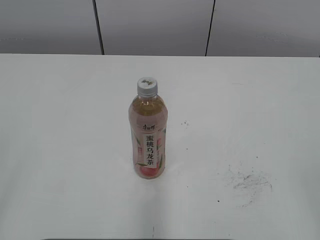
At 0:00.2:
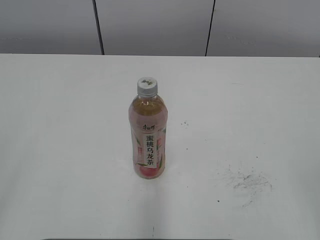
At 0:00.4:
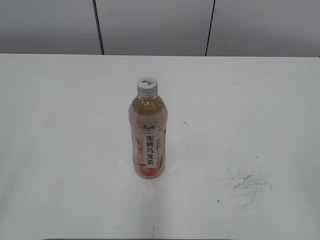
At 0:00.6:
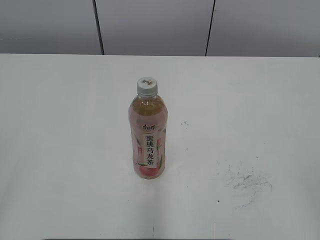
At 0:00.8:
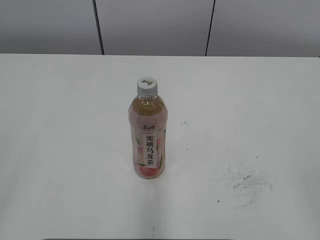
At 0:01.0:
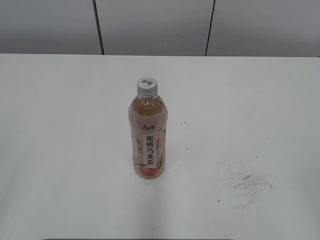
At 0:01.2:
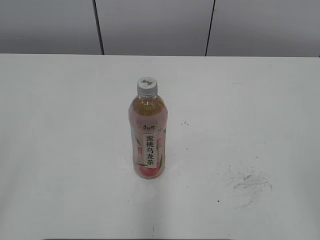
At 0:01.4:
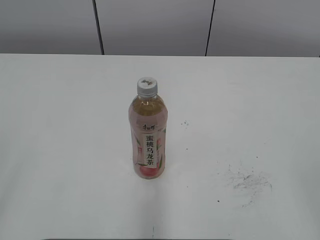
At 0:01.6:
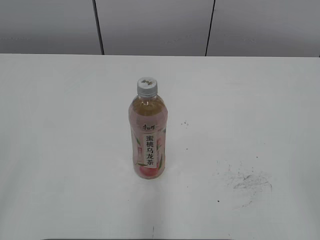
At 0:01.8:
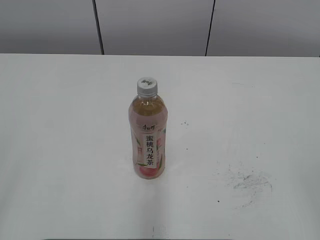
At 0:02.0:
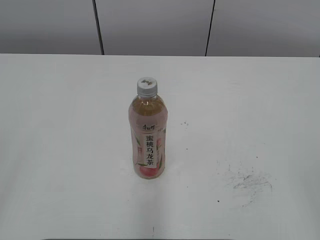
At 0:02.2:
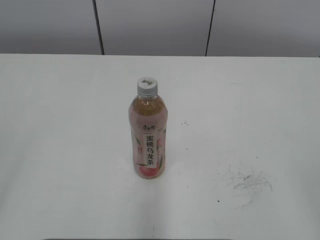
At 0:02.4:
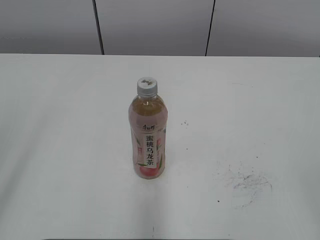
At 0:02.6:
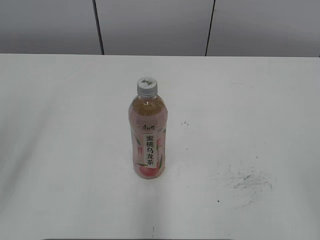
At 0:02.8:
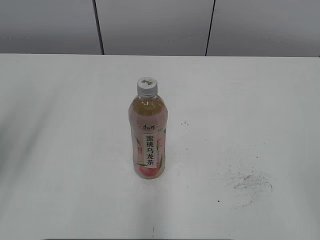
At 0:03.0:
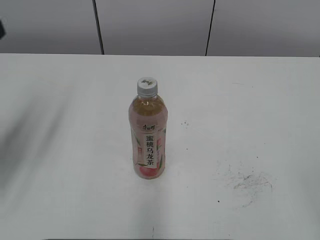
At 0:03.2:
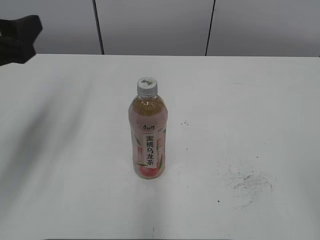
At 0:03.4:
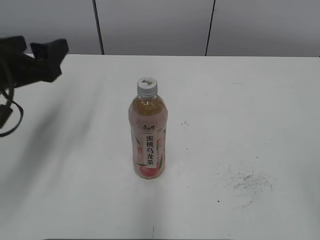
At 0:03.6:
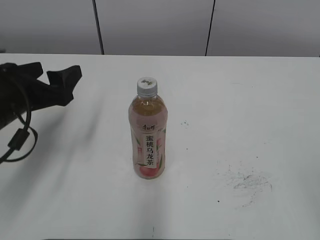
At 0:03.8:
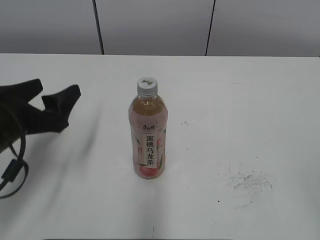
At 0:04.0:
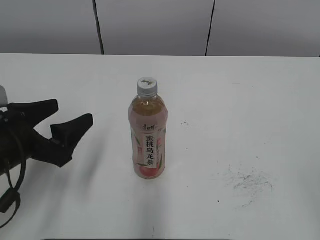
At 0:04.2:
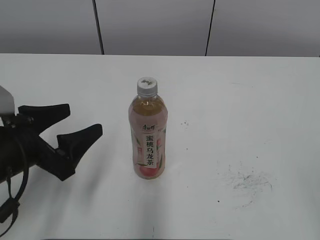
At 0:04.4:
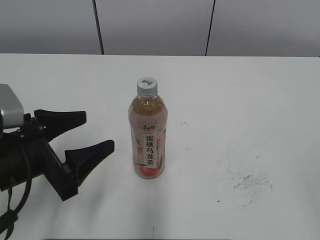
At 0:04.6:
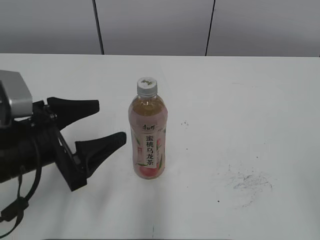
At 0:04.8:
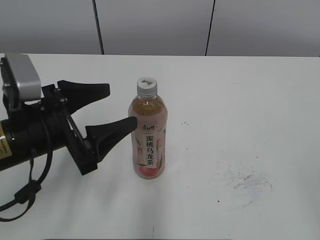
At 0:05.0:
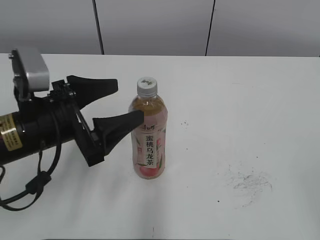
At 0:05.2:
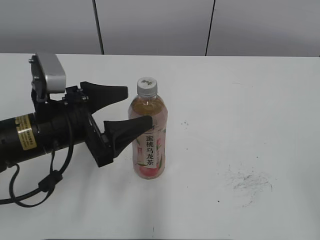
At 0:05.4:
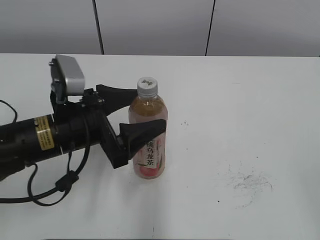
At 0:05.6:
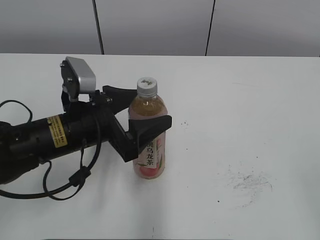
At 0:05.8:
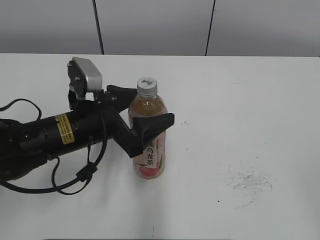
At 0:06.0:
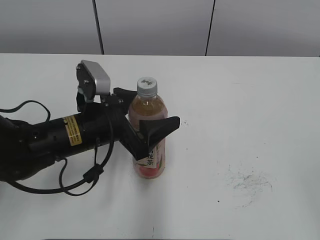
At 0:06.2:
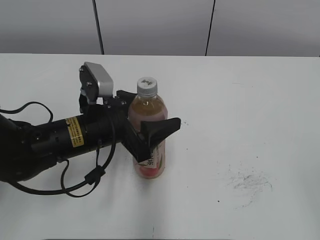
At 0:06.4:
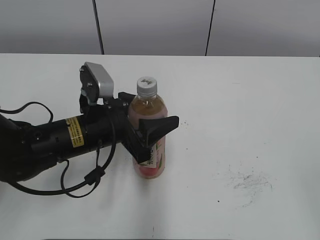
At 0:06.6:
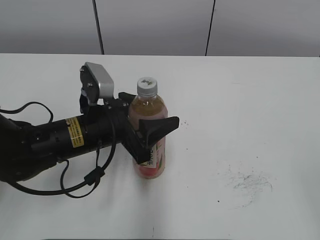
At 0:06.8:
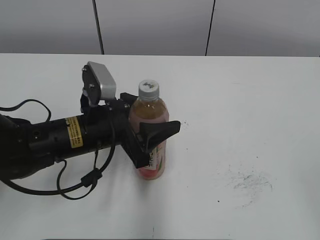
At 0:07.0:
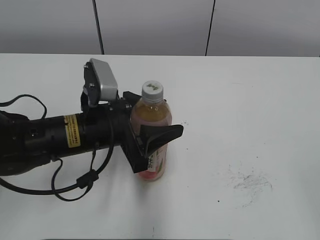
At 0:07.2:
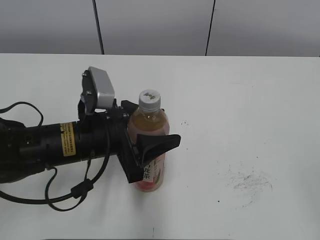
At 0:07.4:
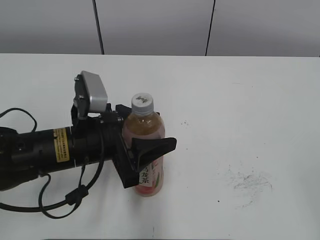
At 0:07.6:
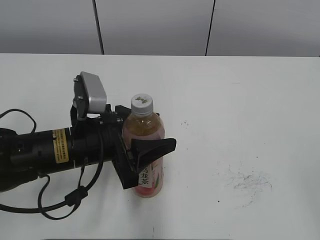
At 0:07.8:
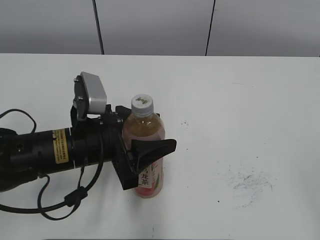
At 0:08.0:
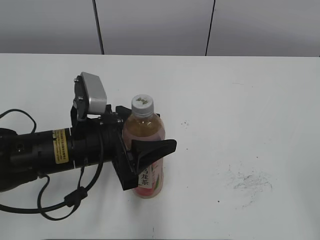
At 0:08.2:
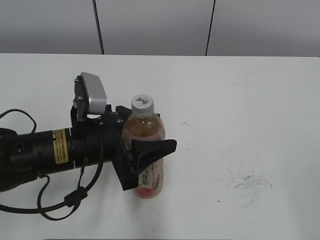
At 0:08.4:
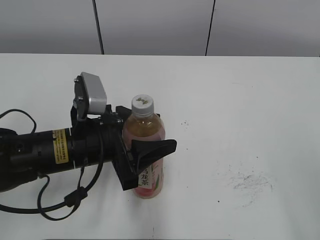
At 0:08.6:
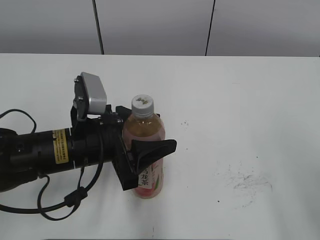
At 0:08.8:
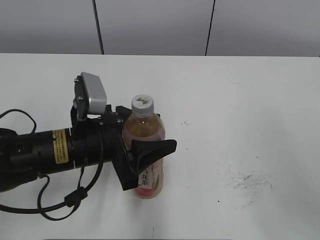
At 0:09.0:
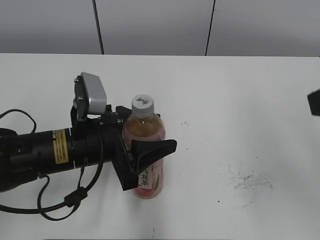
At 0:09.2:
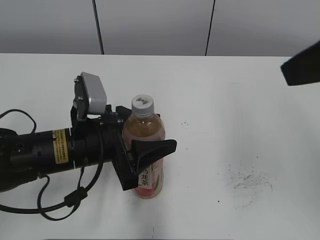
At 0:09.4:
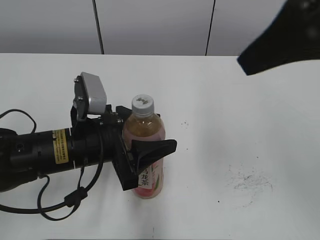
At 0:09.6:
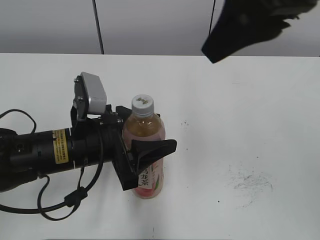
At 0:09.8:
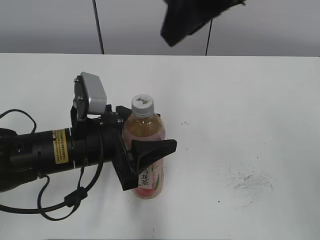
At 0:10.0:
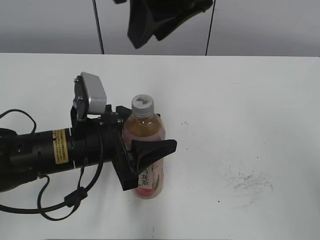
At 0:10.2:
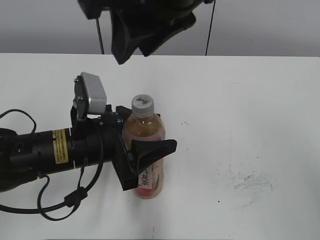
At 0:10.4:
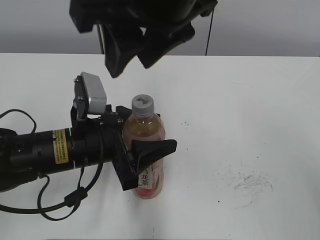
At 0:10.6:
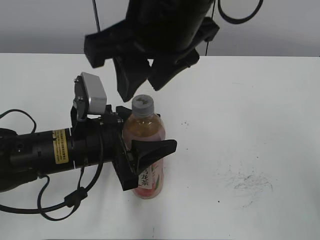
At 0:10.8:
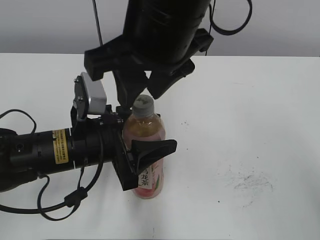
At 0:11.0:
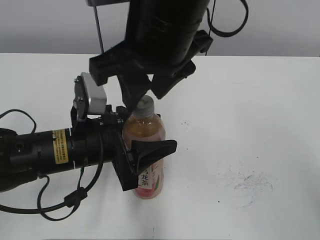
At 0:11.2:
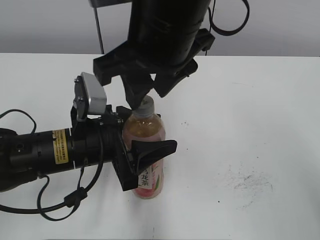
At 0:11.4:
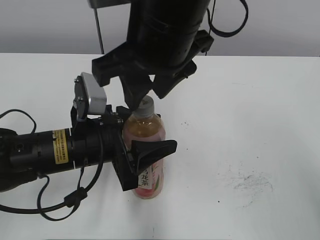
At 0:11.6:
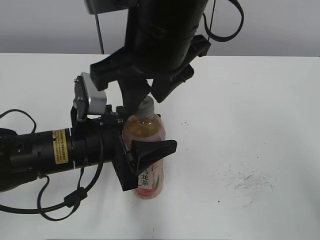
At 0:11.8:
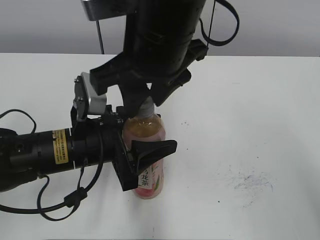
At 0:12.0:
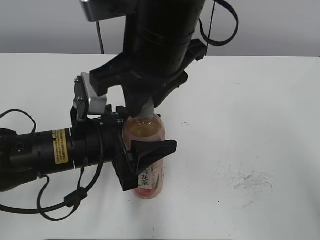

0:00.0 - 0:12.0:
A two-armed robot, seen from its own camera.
Step, 0:00.0 - 0:06.2: Grab the Peach Oolong Tea with the left hand.
Step, 0:06.4 - 0:07.8: Move the Peach Oolong Tea from left to right.
0:01.6 - 0:03.0: The left gripper heads forward, covering approximately 20 cm.
0:03.0 - 0:04.4: The left gripper travels downward and to the right by some 15 cm, and opens its fingers.
0:04.4 - 0:06.0: The left gripper shifts approximately 10 cm to the right and forward.
0:06.0 - 0:07.6: The left gripper closes.
0:07.6 - 0:09.0: The right gripper goes approximately 15 cm forward, to the left and upward.
0:09.0 - 0:10.4: The right gripper moves to the left and forward, approximately 25 cm.
0:10.4 - 0:12.0: The right gripper travels downward by some 5 cm.

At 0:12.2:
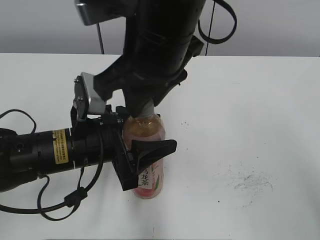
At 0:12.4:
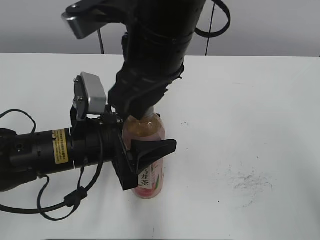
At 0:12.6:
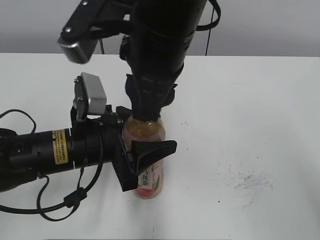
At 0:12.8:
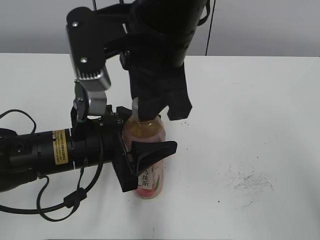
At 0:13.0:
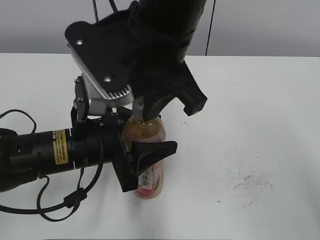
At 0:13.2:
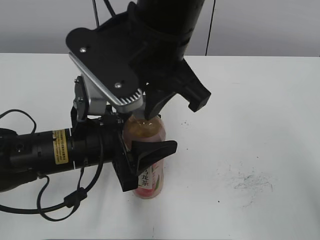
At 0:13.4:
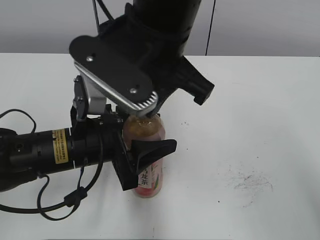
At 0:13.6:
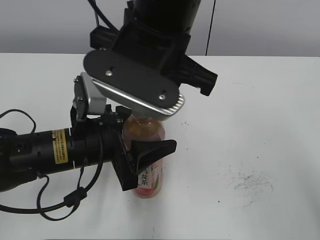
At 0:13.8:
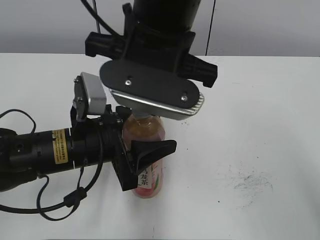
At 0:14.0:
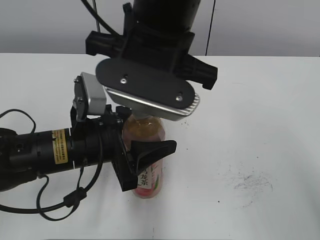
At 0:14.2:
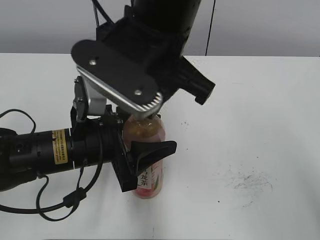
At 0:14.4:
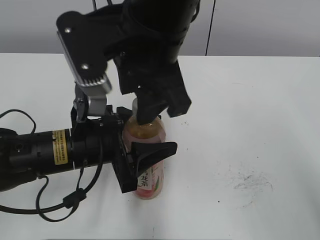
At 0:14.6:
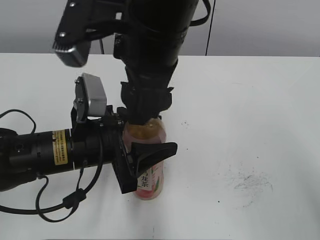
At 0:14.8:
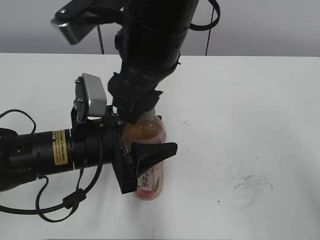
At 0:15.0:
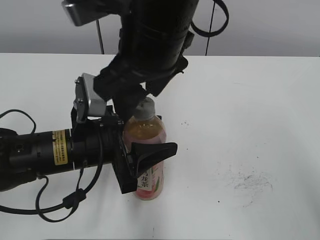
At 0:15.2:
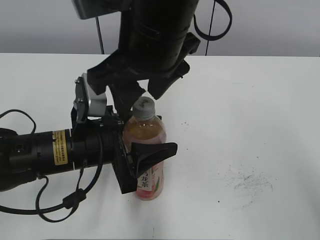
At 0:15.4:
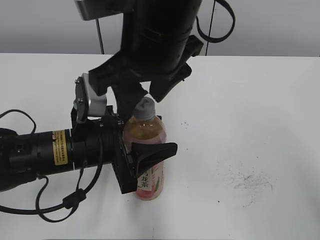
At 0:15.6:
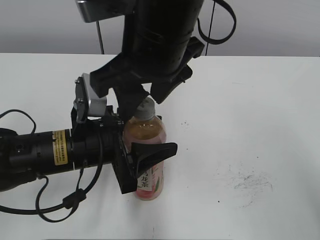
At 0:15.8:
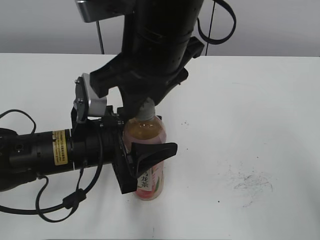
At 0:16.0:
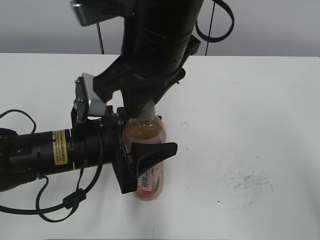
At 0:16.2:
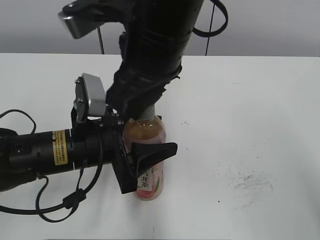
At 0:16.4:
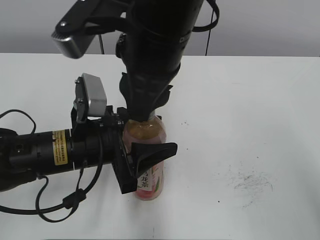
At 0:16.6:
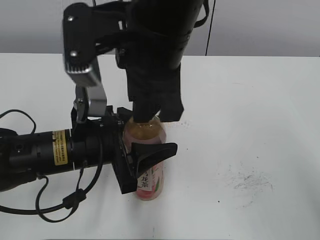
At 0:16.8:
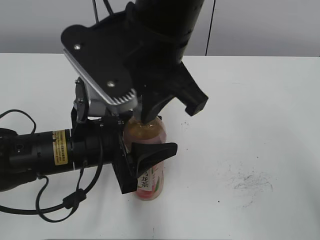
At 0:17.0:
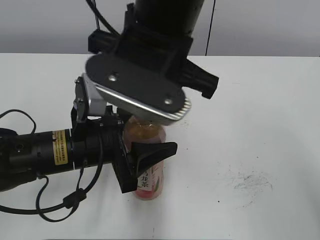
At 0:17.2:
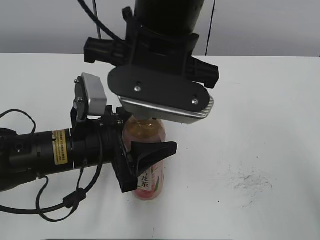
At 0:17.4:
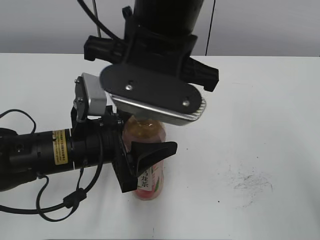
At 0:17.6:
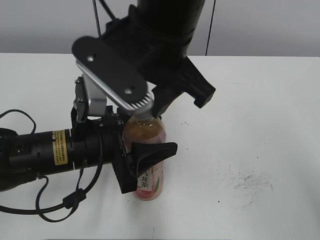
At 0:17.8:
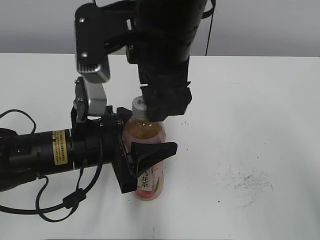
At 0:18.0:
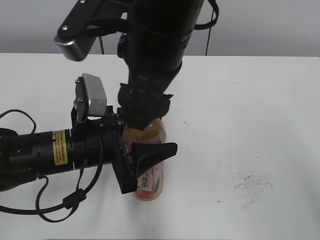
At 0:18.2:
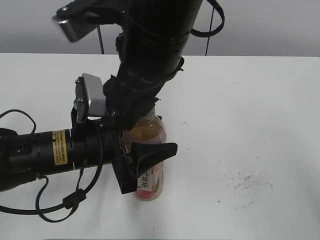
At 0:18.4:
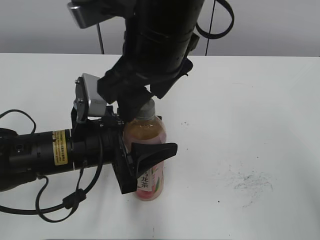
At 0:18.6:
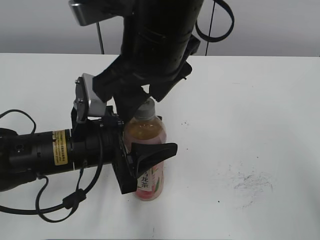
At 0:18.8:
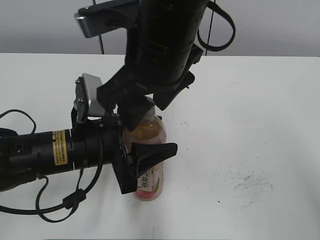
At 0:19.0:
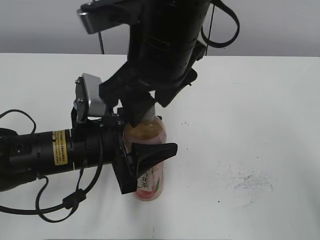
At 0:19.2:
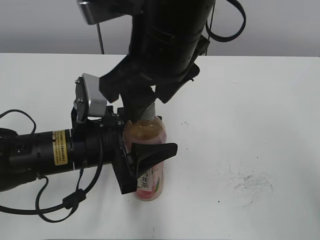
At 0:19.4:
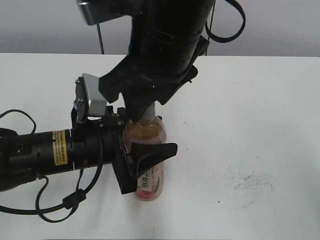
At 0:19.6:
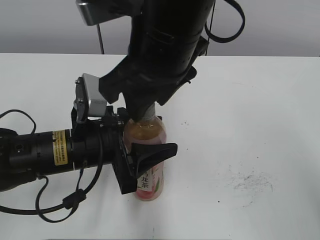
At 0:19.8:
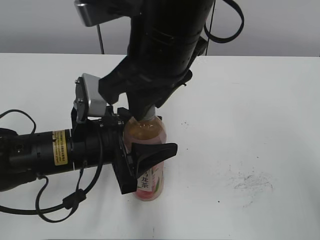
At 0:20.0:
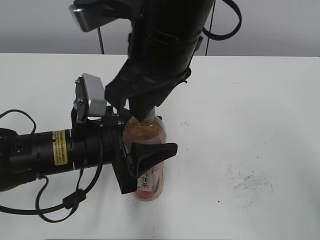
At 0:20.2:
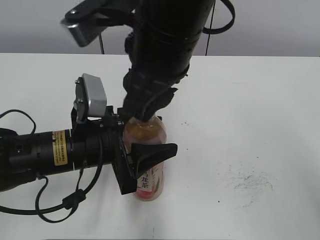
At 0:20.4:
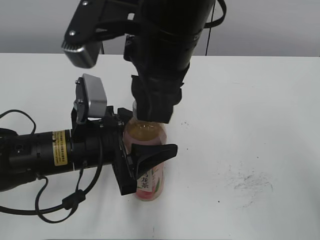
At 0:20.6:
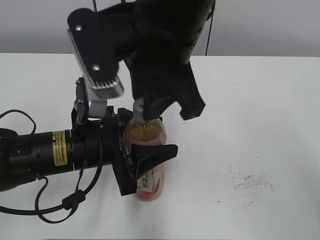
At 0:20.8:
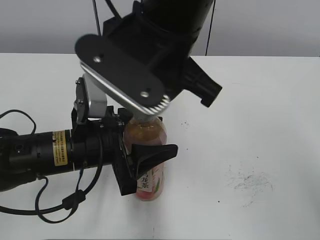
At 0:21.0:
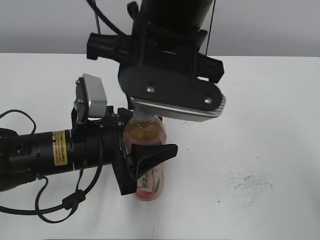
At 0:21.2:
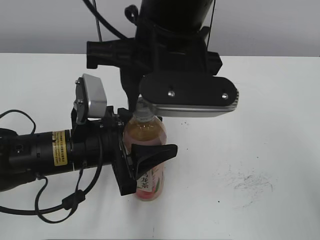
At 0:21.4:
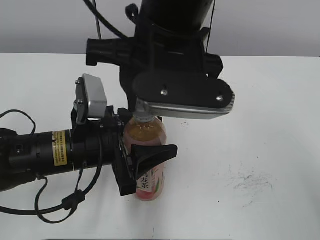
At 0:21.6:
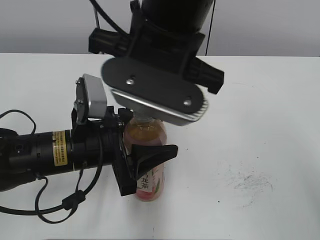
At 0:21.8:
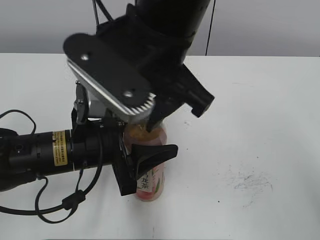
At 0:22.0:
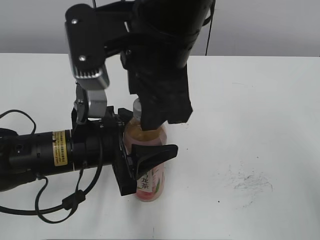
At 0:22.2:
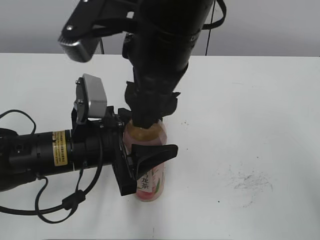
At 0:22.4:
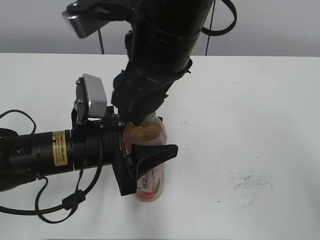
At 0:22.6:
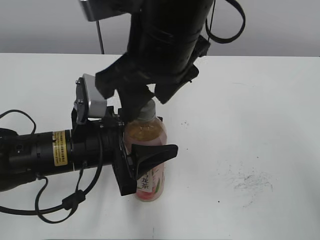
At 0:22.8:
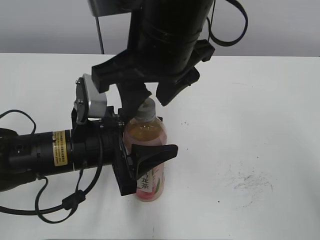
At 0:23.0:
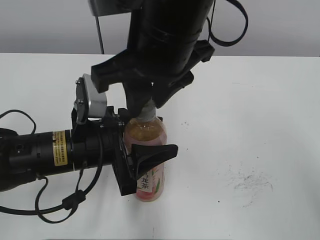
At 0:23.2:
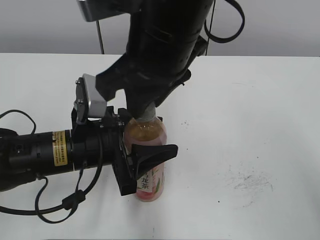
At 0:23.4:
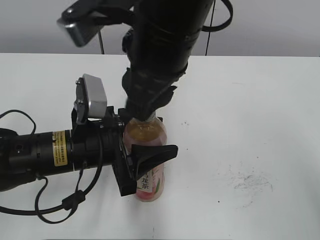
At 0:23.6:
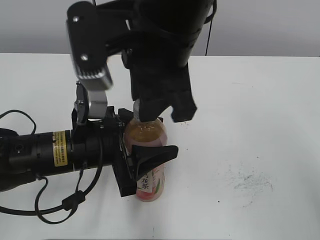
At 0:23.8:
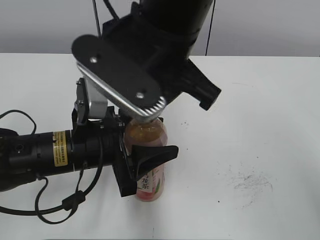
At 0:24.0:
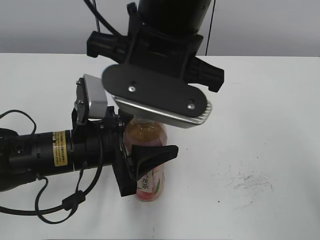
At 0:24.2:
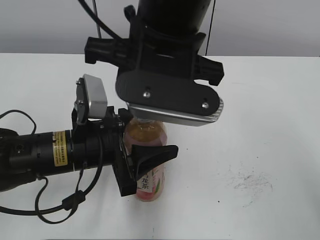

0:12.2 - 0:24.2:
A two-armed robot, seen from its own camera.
0:13.8 - 0:15.2: The right gripper opens its fingers.
0:15.2 - 0:16.6: The right gripper closes its fingers.
0:16.6 - 0:18.2: The right gripper opens up.
0:18.2 - 0:19.8: The right gripper closes up.
0:21.2 - 0:22.6: The right gripper opens its fingers.
0:22.6 - 0:24.2: The right gripper closes its fingers.
